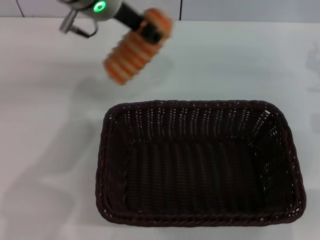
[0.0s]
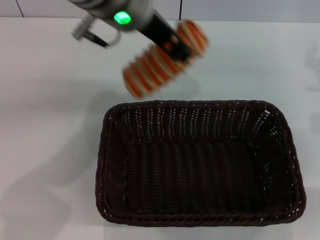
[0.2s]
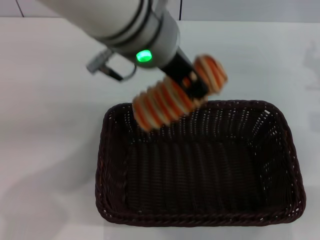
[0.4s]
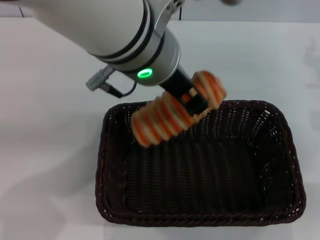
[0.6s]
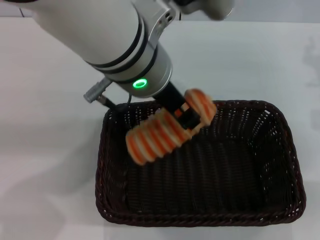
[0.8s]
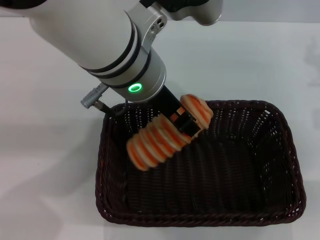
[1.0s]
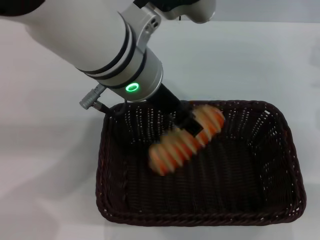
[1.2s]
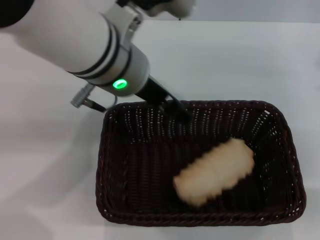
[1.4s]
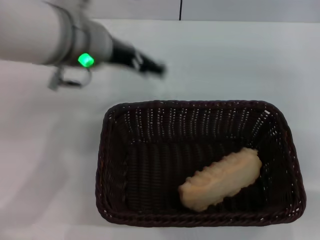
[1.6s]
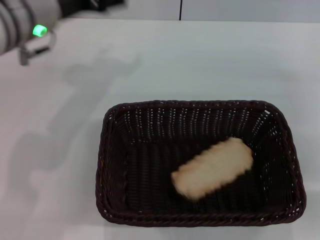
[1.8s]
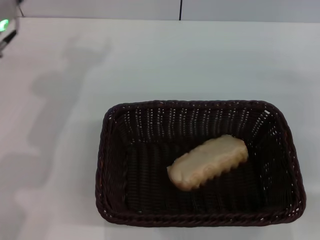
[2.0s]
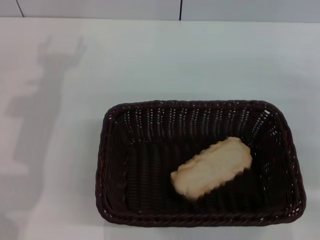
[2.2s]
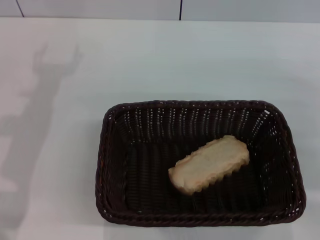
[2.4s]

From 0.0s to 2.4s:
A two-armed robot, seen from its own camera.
Step, from 0.0s to 1.2s: Place the long bread into the dark basket with the left gripper.
From 0.0s to 1.2s: The left gripper is displaced backward by about 10 cm.
From 1.2s to 2.4s: The left gripper is displaced to the left and downward by about 20 cm, and opens its fingers; the right gripper ends up about 5 cm from where it was.

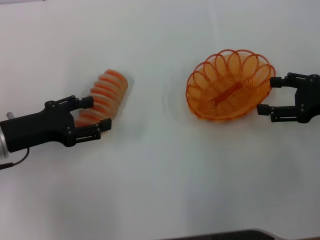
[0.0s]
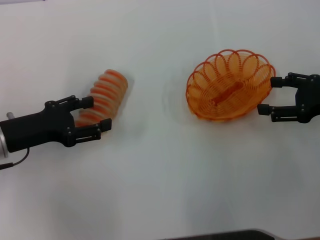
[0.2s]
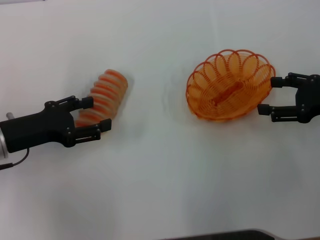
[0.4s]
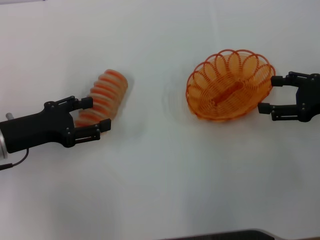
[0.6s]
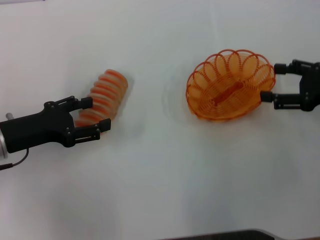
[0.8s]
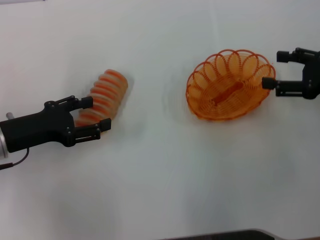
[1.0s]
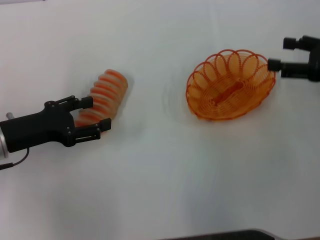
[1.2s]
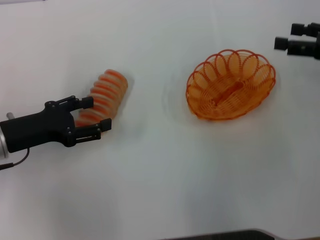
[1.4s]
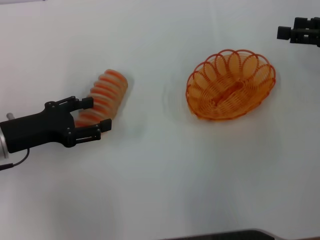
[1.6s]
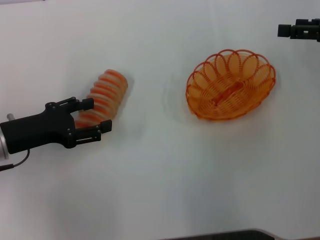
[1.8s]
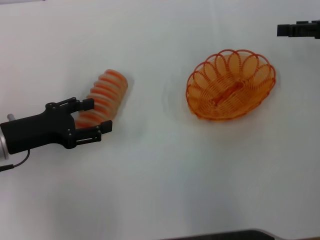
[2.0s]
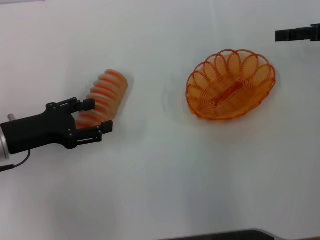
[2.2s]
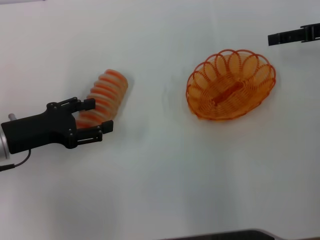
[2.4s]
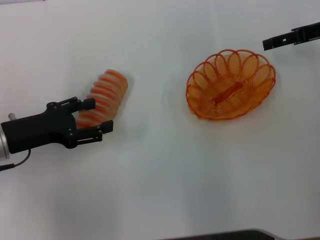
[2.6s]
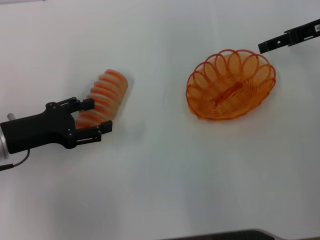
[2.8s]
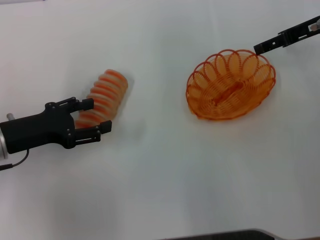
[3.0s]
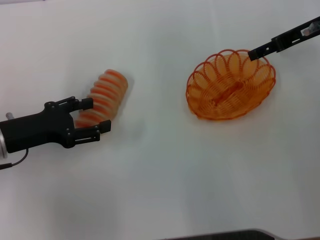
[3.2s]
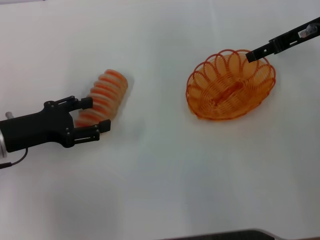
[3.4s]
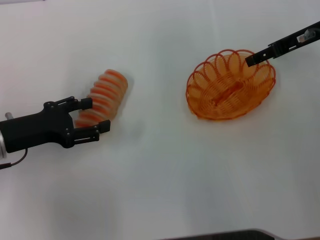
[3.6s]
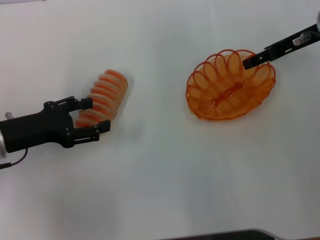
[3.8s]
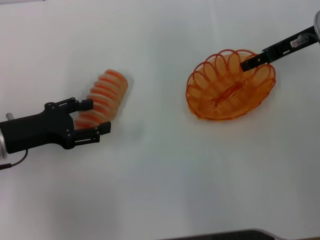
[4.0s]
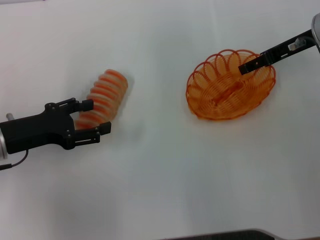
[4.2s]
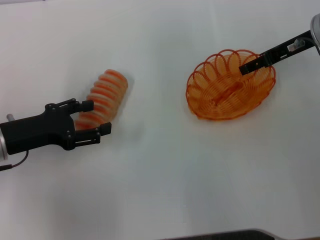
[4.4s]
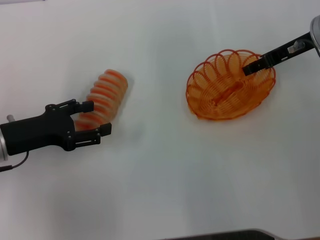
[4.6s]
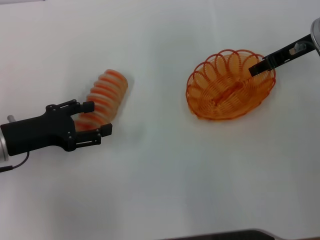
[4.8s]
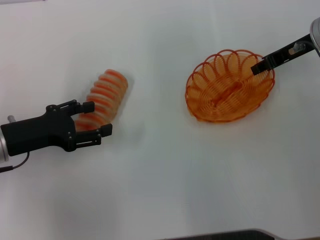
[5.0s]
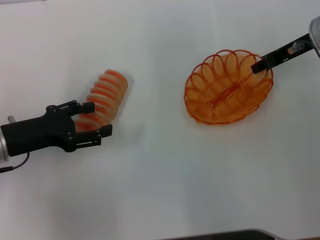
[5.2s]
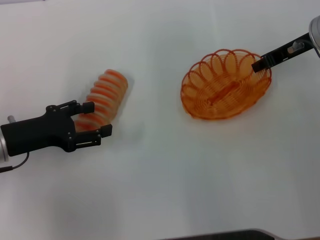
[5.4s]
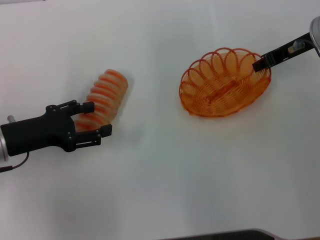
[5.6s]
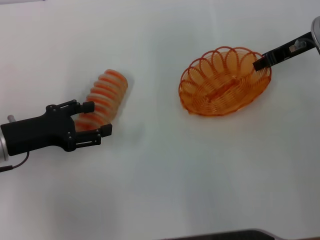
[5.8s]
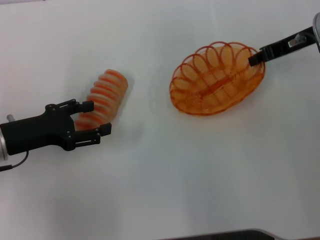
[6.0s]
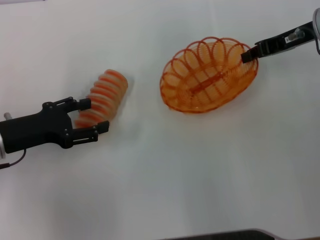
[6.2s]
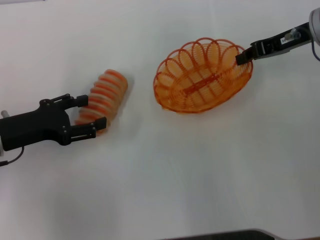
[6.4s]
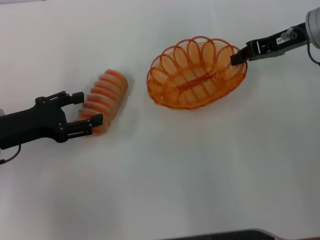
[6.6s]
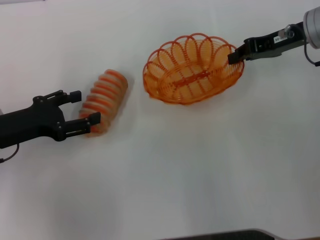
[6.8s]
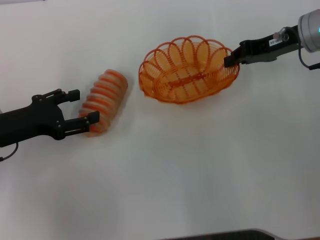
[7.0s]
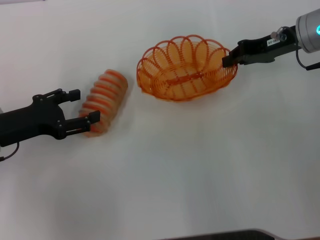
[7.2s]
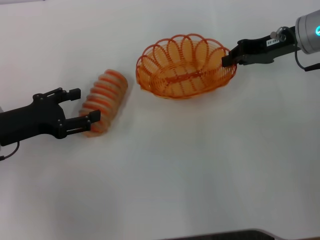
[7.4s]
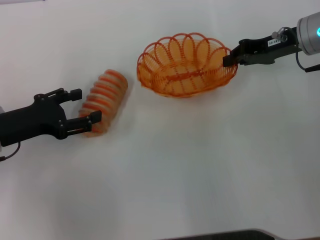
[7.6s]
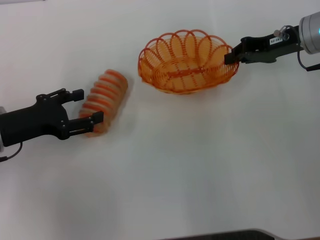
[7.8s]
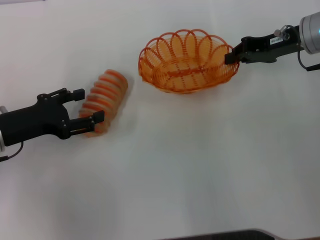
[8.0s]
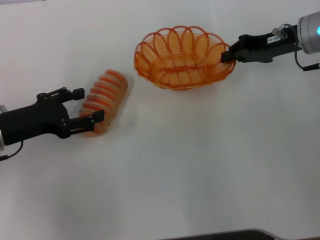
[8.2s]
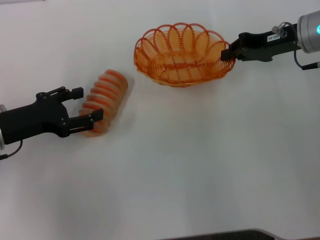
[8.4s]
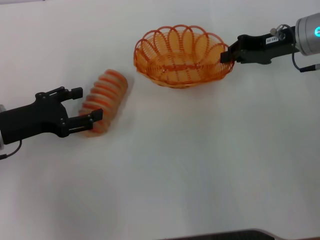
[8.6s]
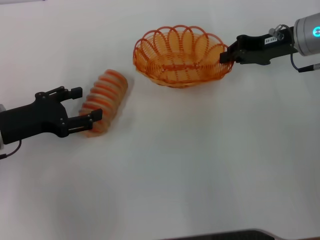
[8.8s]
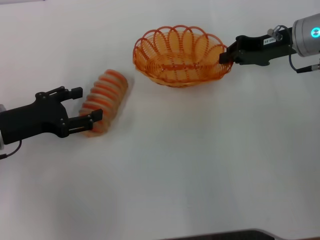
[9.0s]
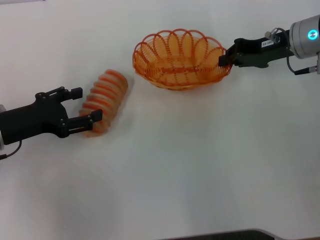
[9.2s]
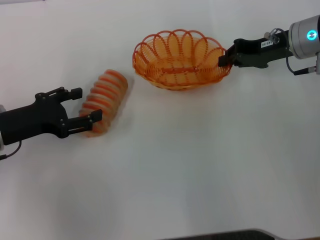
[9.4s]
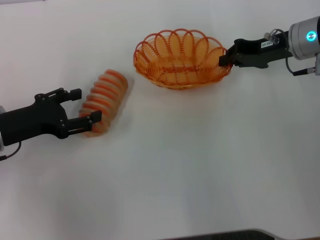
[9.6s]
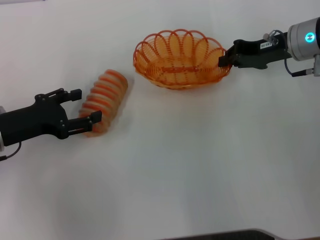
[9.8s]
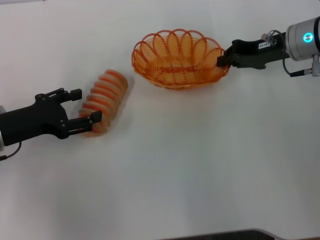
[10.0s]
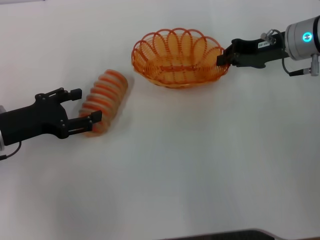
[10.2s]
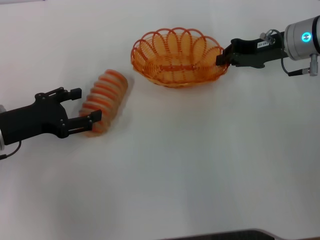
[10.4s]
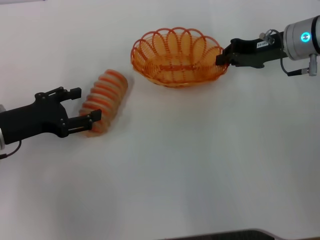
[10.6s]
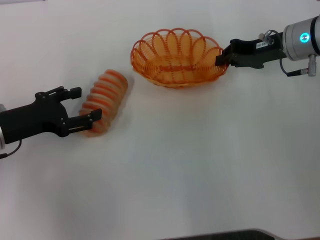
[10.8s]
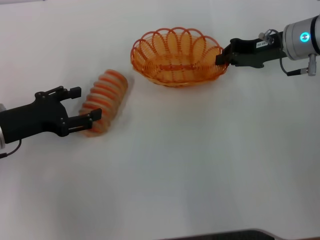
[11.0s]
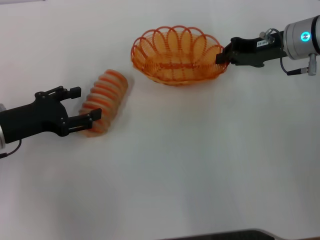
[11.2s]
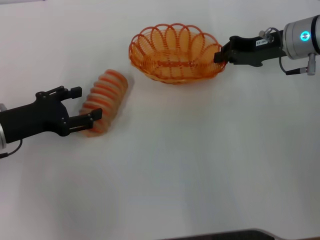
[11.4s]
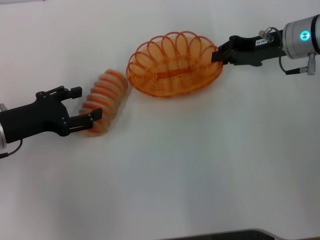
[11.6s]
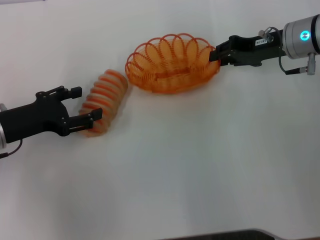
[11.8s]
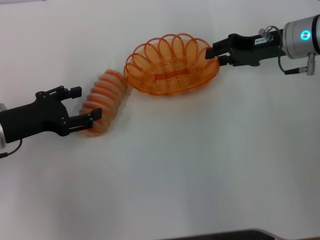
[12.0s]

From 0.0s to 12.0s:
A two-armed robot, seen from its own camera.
Step, from 0.0s to 5.8s: Pick up the basket with the right gripper.
From 0.0s to 1.6s: The right gripper goes some 5 cm upward.
From 1.6s to 3.0s: The right gripper travels forward and to the left by some 10 cm.
From 3.0s to 4.4s: The grippers stay close to where they were, moving slightly.
From 4.4s to 6.0s: The right gripper closes its fingers.
From 7.6s to 9.0s: The grippers move only a little.
From 9.0s to 10.4s: Both grippers stay about where they are.
From 10.4s to 12.0s: Neither gripper changes place.

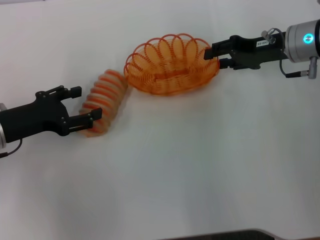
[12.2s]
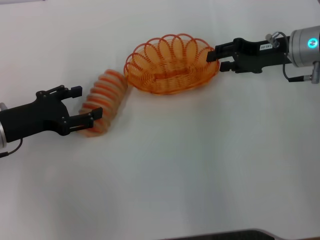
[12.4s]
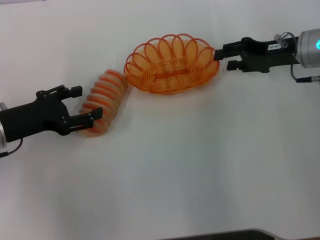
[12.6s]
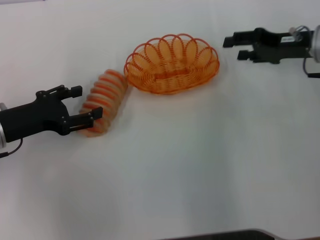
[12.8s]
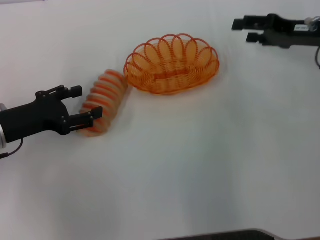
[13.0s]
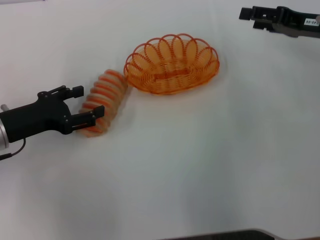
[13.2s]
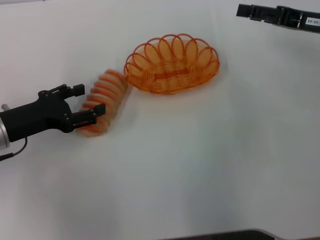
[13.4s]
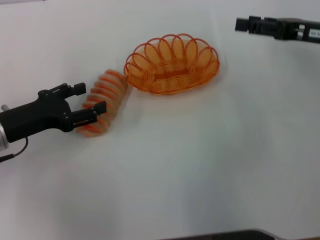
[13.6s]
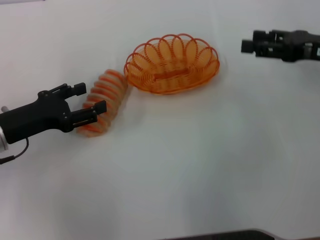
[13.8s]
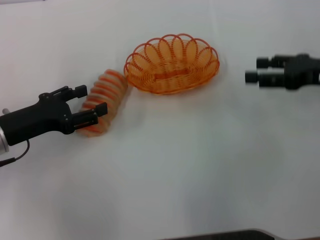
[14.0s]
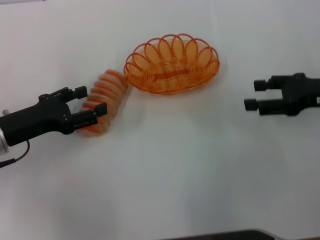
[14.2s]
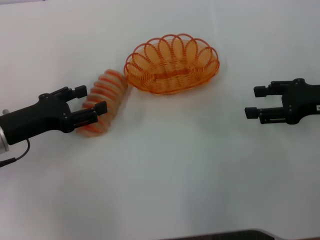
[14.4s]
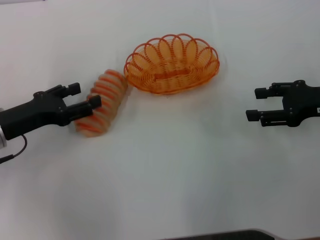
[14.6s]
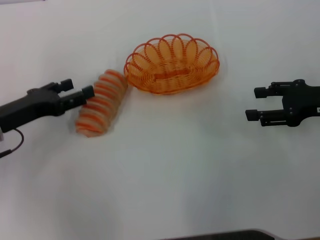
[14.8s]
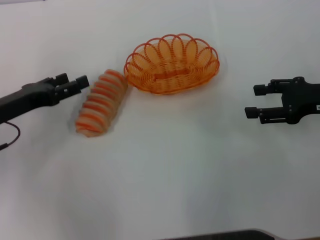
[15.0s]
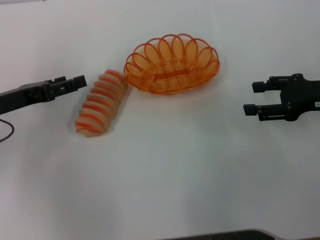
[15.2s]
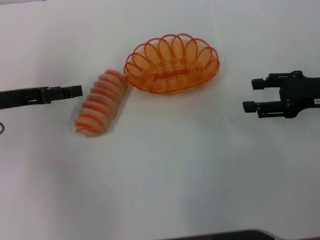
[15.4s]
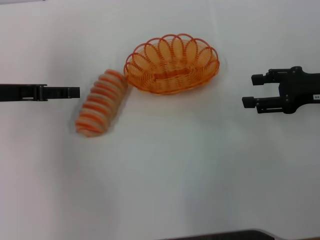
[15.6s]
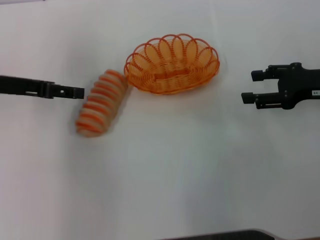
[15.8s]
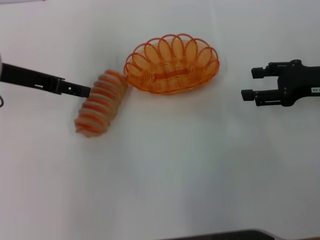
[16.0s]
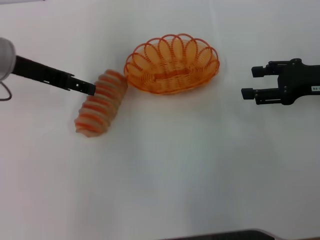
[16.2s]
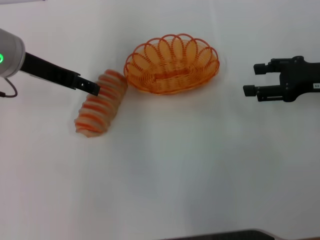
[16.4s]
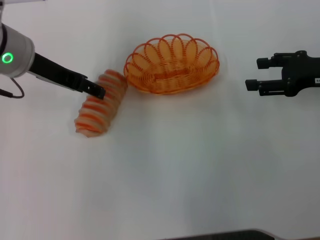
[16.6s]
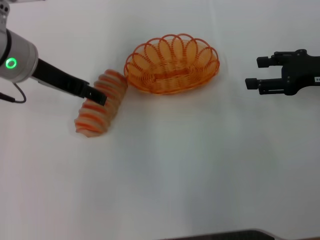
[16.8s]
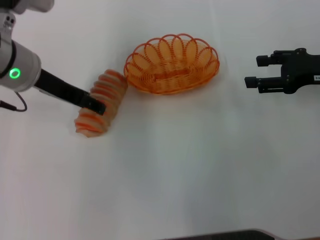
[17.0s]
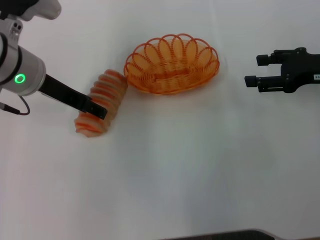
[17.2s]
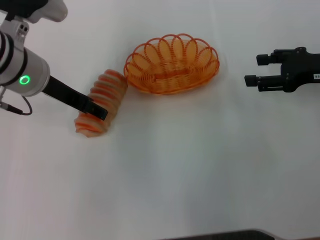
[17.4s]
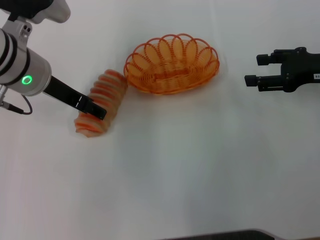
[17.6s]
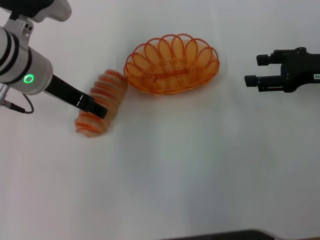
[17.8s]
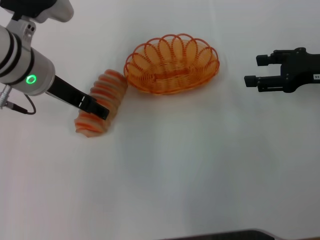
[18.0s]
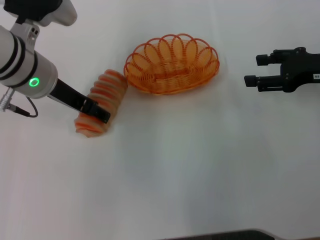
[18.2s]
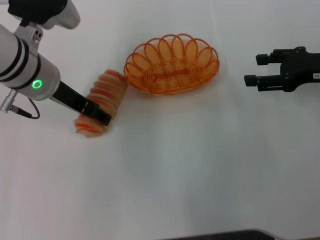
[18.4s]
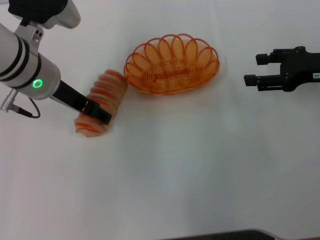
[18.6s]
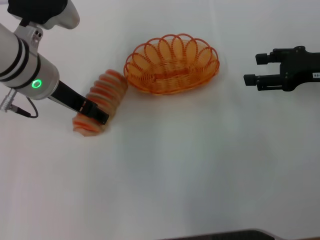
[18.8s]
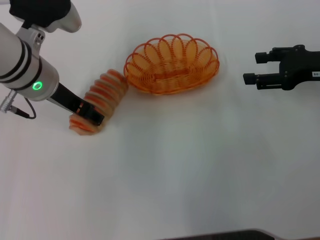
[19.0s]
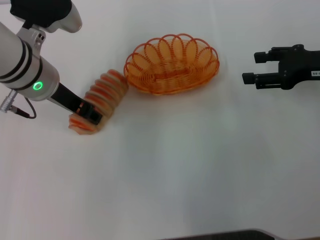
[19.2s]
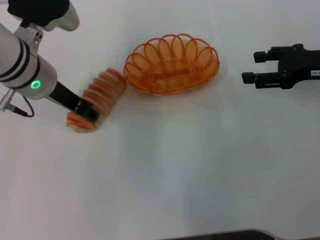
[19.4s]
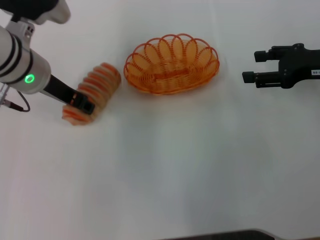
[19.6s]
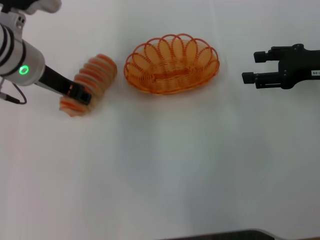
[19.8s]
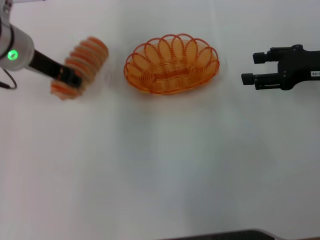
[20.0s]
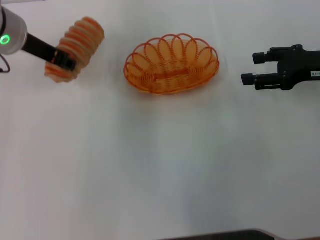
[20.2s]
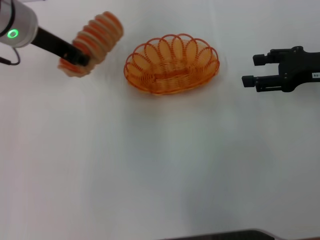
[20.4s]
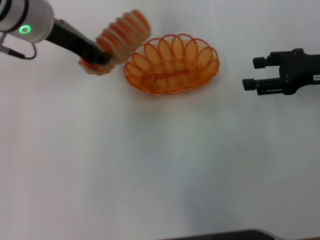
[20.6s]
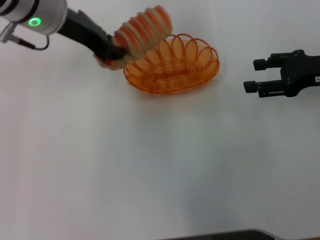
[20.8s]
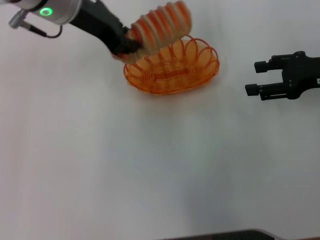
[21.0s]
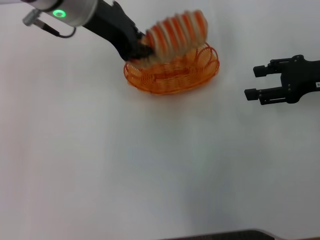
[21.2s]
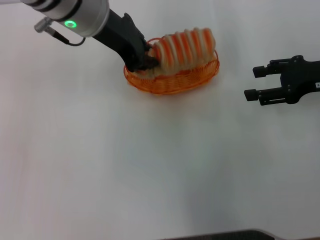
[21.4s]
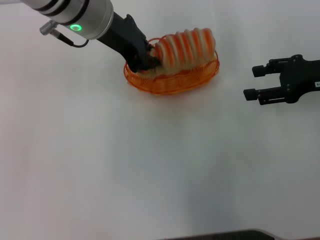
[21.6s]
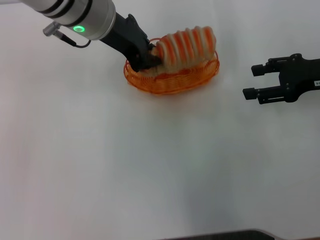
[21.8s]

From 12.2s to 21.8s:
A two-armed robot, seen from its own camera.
Step, from 12.8s to 19.6s: Pick up the long bread with the left gripper.
From 12.2s to 13.8s: The right gripper heads backward and to the right, covering approximately 10 cm, and opens.
From 13.8s to 15.4s: The left gripper moves roughly 5 cm.
From 15.4s to 17.0s: The left gripper heads to the right and upward, covering about 10 cm.
From 17.0s to 18.6s: The grippers move only a little.
From 18.6s to 20.2s: The left gripper changes place by approximately 5 cm, and closes.
From 20.2s to 21.8s: The left gripper moves to the right, roughly 10 cm, and closes its fingers.
